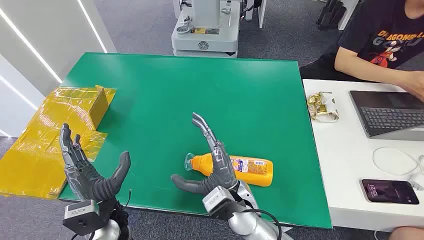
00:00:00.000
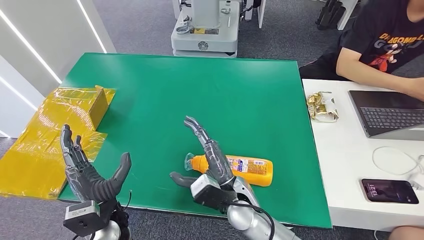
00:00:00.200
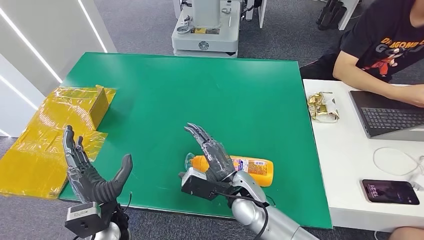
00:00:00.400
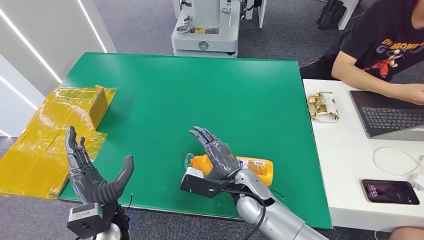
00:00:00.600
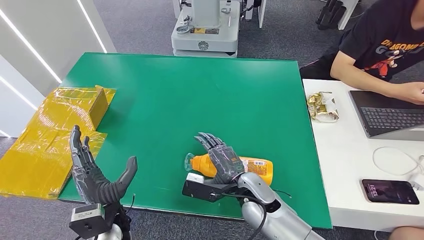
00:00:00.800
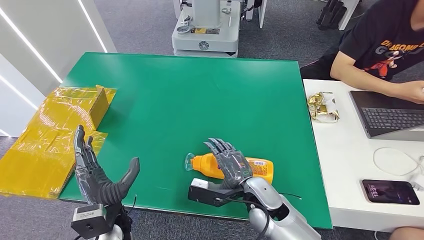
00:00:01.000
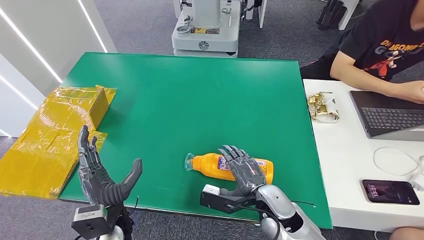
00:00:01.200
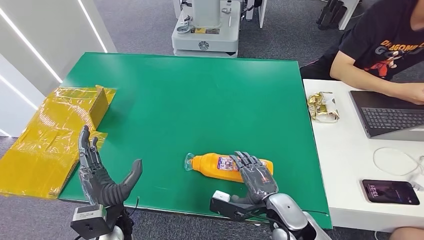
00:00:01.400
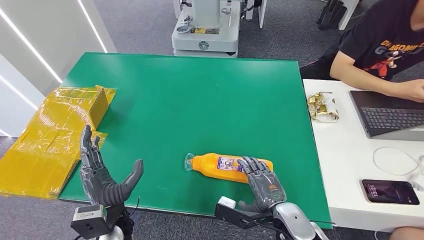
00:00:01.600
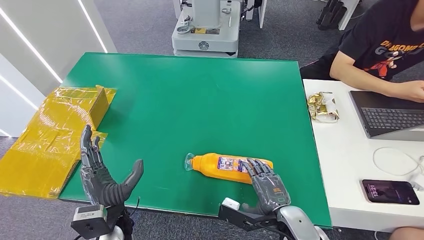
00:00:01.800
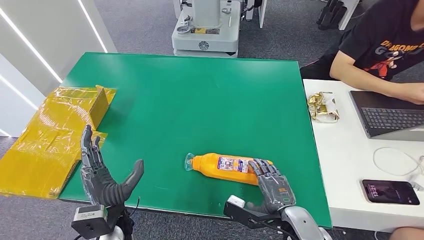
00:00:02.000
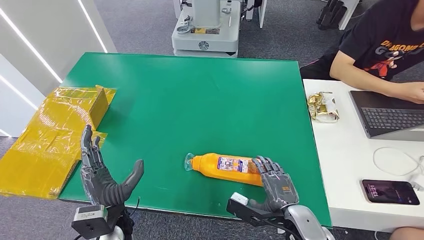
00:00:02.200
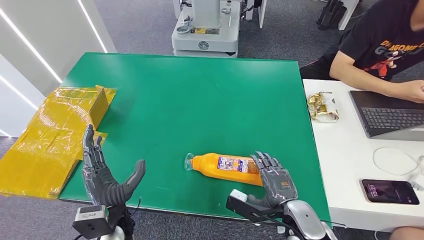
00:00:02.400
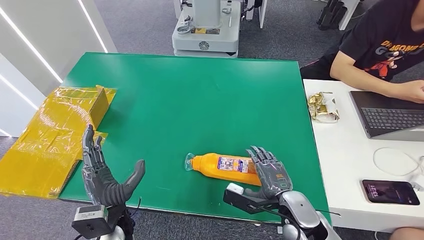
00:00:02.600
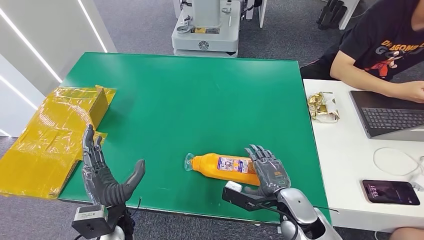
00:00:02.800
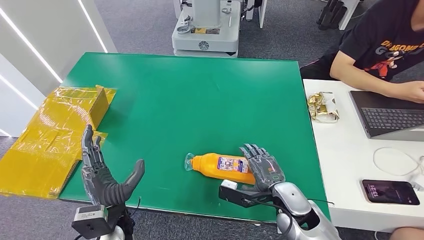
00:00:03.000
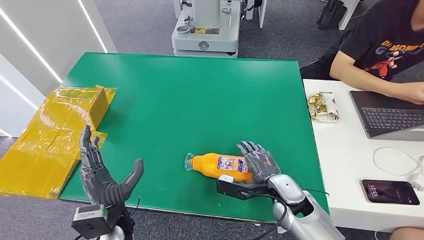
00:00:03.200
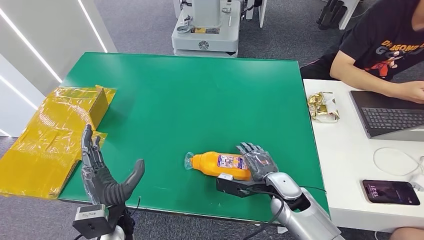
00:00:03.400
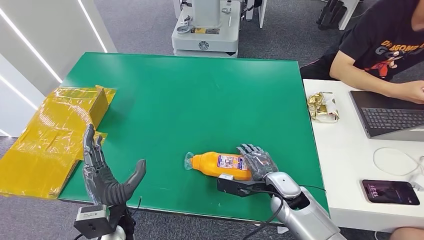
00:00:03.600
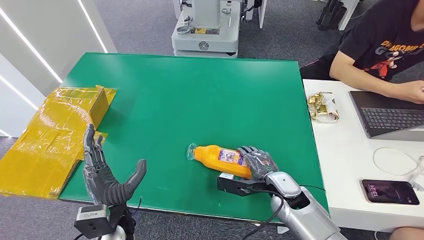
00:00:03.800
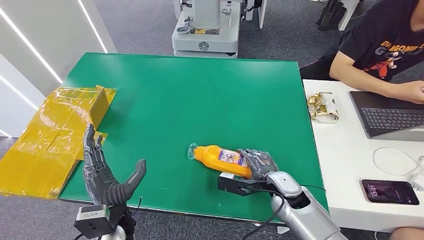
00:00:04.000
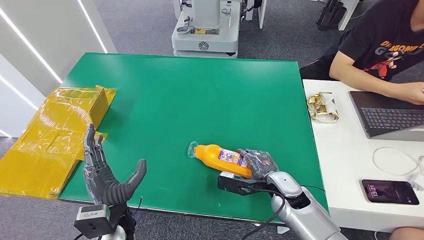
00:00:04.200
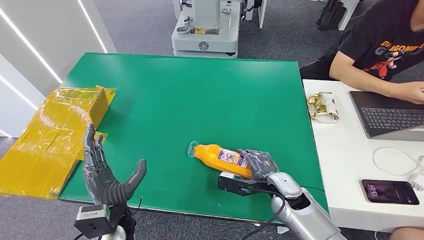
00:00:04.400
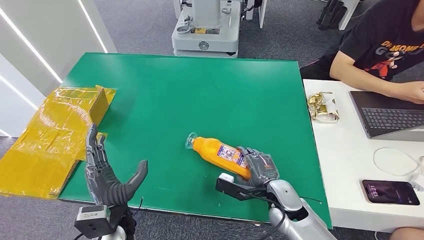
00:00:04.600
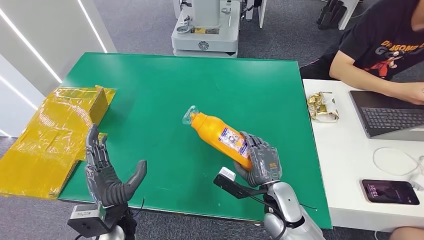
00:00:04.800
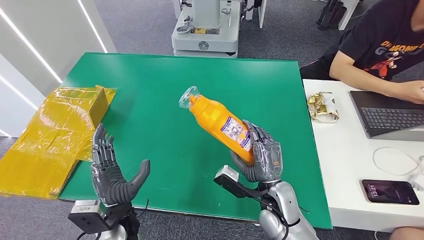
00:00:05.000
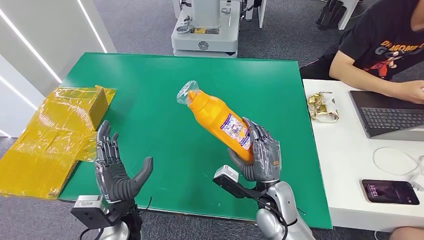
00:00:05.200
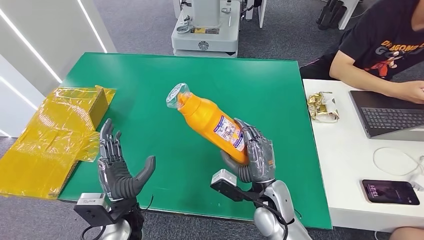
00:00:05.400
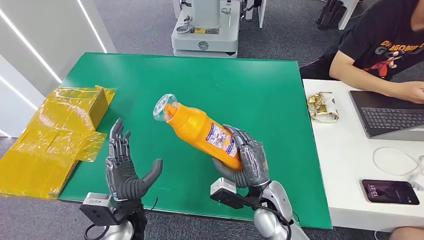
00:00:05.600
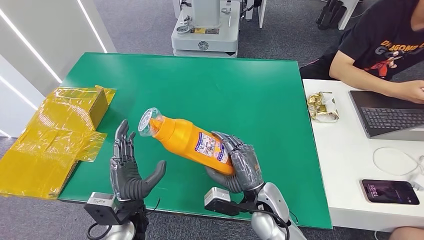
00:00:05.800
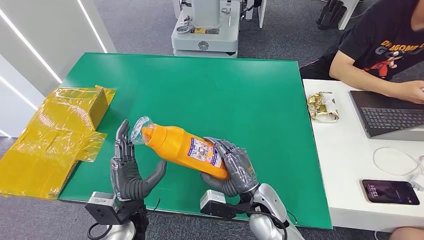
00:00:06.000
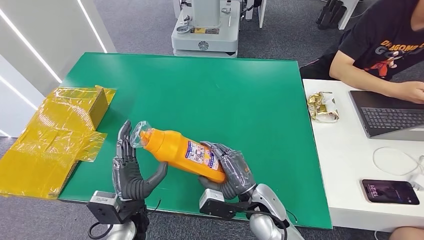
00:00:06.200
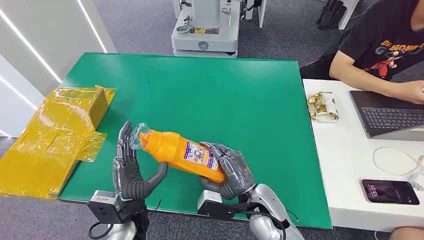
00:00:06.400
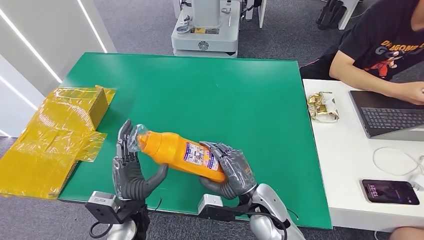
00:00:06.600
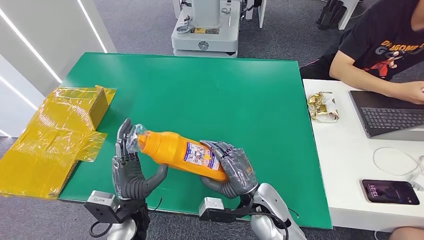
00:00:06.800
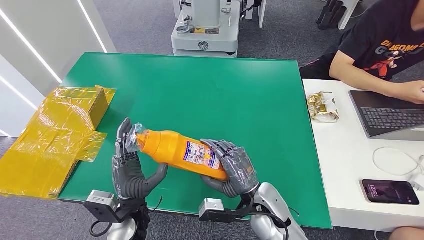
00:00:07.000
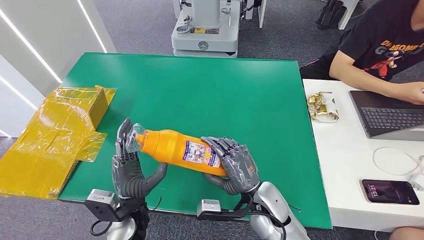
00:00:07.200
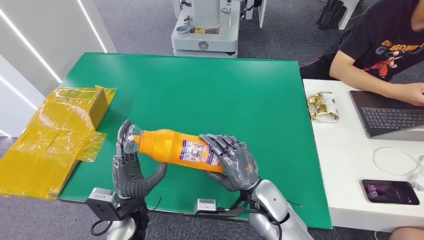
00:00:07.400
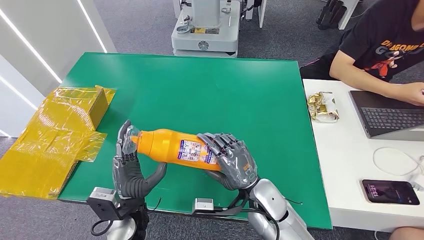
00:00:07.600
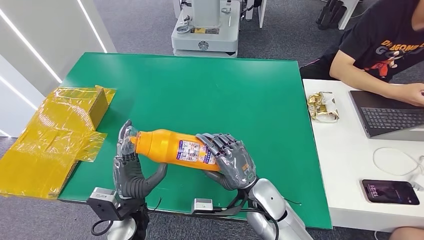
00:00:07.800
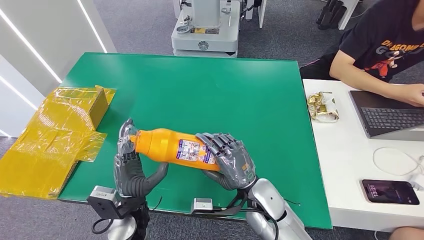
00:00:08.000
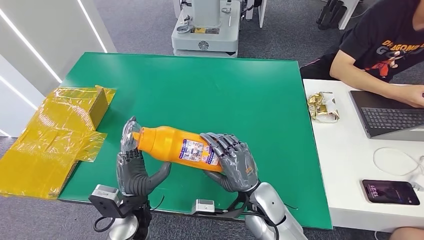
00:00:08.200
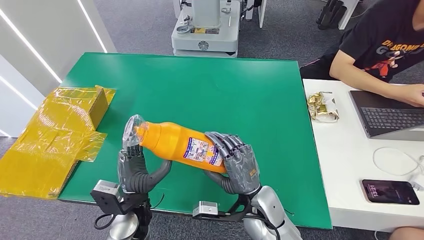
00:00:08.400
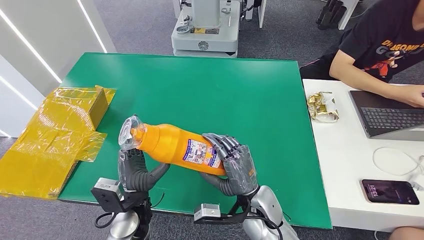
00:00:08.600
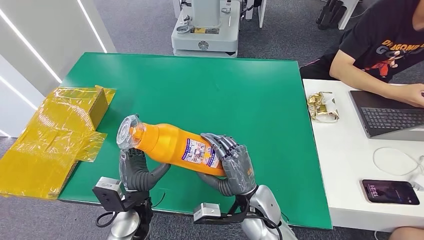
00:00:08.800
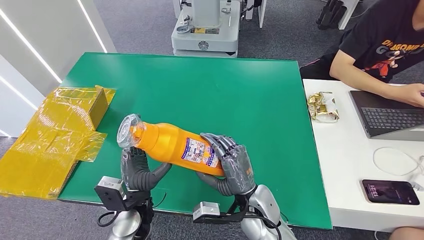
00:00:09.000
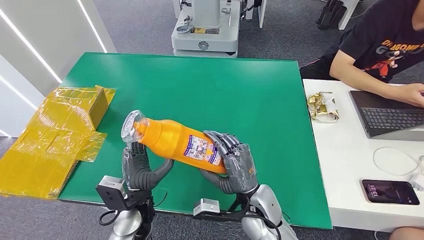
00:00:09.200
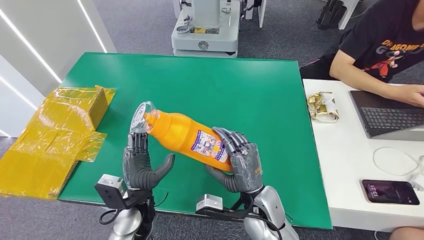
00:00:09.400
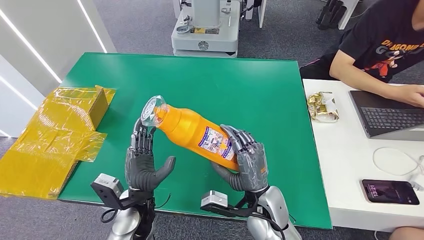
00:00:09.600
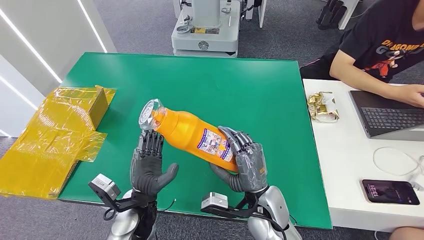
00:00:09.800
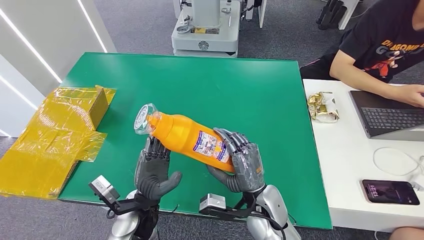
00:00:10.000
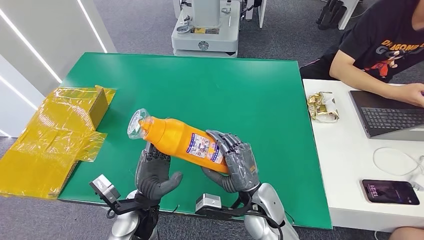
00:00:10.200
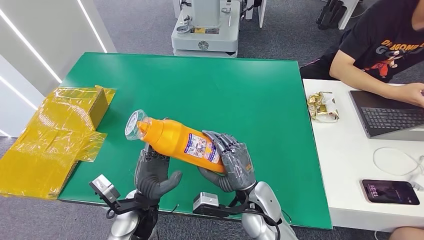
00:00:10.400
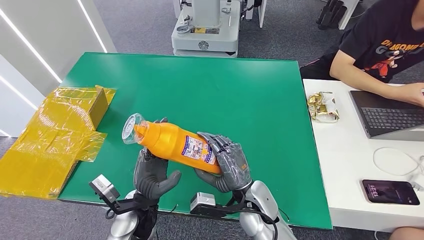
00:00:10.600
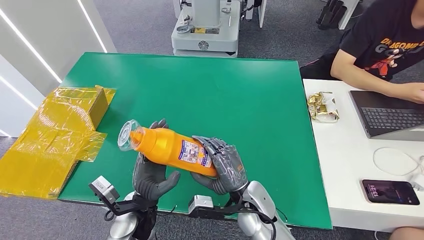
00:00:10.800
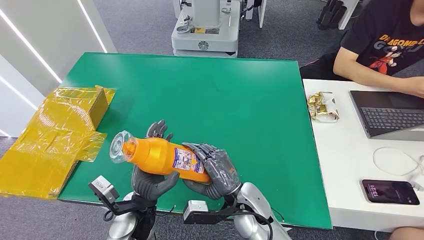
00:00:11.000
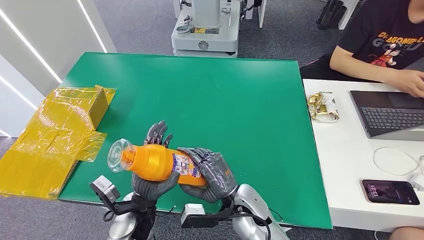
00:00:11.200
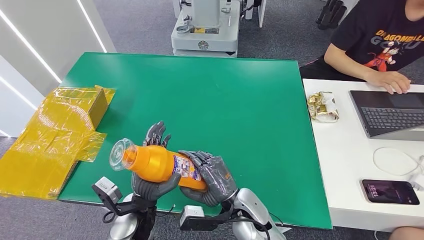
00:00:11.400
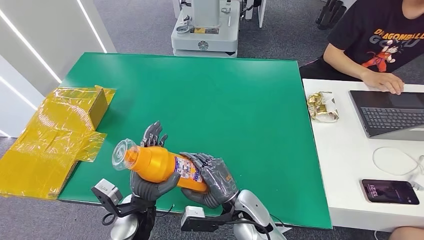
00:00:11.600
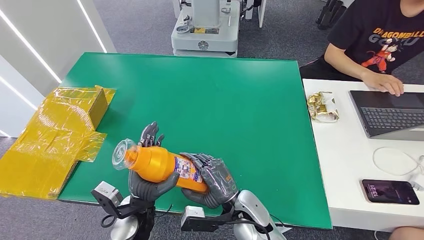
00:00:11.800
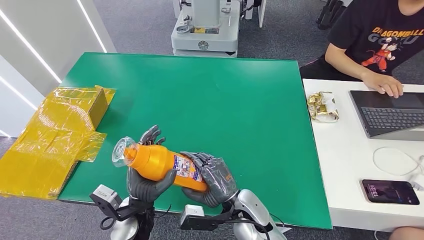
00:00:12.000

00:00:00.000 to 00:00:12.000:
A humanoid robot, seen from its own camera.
Step, 00:00:00.000 to 00:00:05.000: Pick up the bottle from the table.
00:00:01.600 to 00:00:03.000: The right hand moves forward, about 5 cm.
00:00:03.000 to 00:00:04.400: There are only small adjustments of the hands.
00:00:04.400 to 00:00:06.000: The right hand heads to the left, covering roughly 5 cm.
00:00:10.400 to 00:00:12.000: There are only small adjustments of the hands.

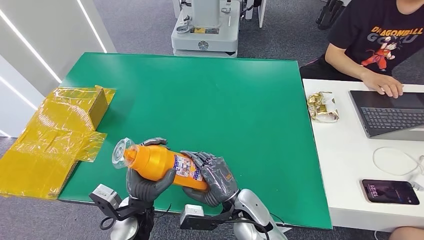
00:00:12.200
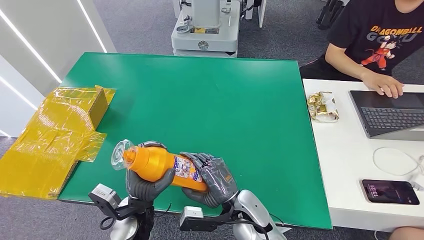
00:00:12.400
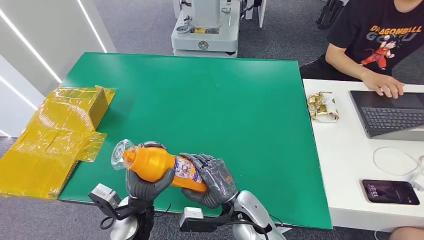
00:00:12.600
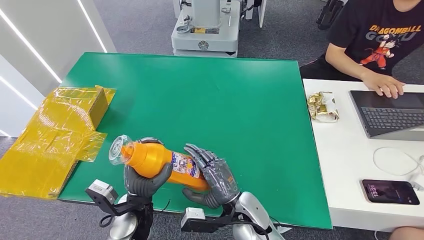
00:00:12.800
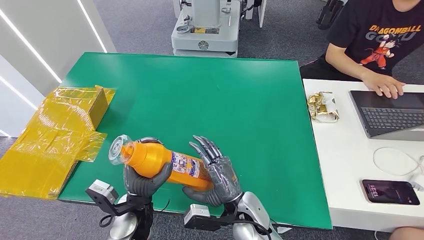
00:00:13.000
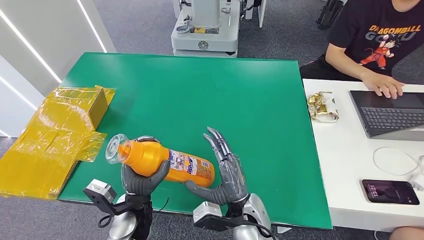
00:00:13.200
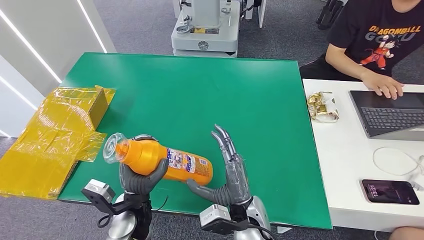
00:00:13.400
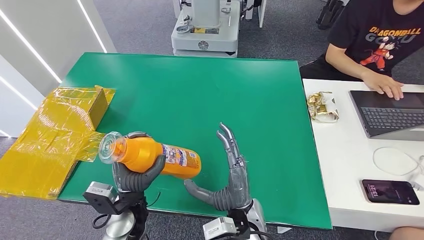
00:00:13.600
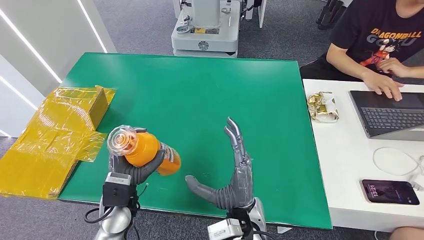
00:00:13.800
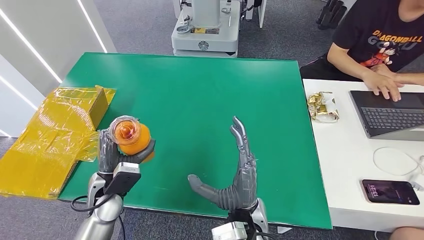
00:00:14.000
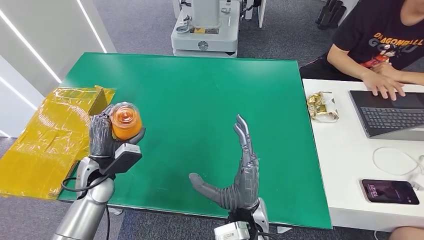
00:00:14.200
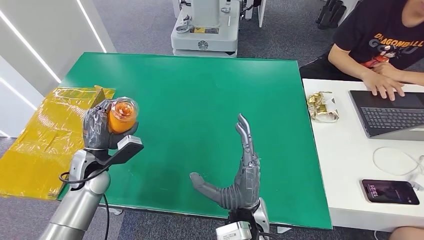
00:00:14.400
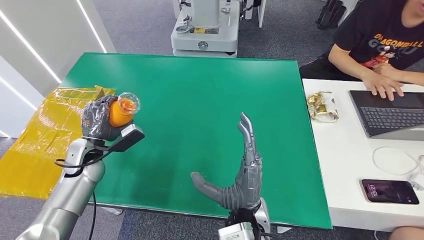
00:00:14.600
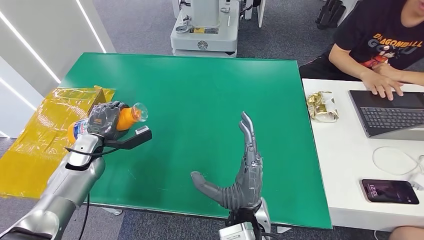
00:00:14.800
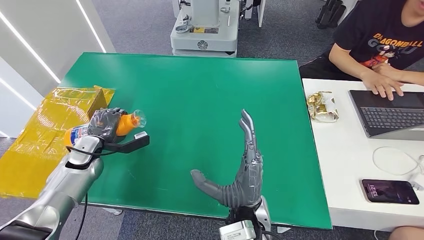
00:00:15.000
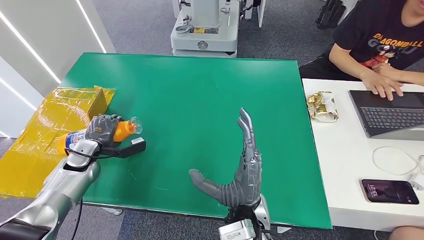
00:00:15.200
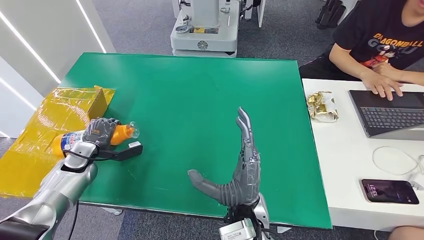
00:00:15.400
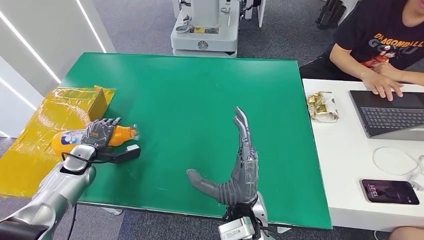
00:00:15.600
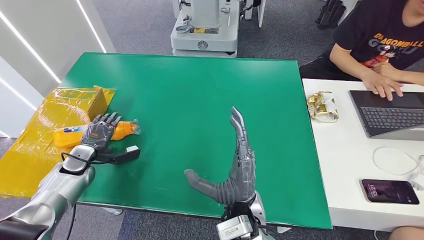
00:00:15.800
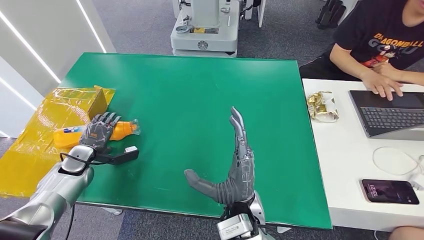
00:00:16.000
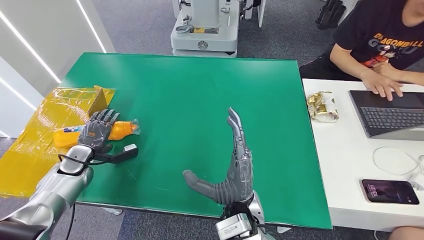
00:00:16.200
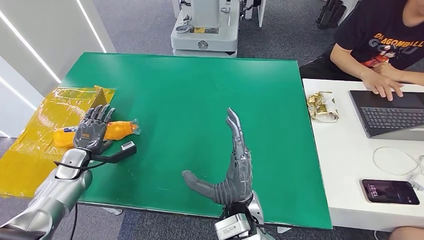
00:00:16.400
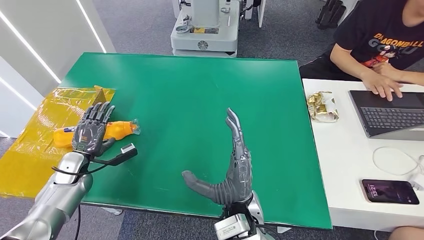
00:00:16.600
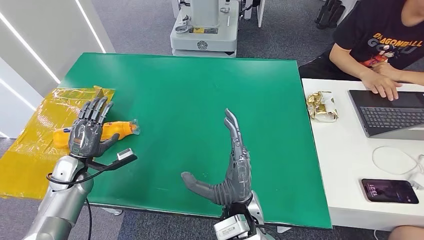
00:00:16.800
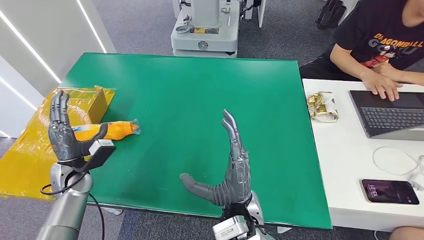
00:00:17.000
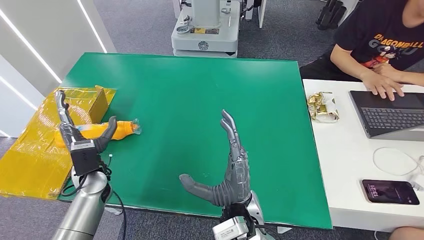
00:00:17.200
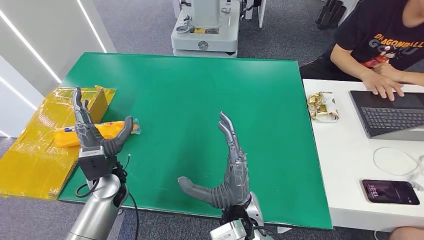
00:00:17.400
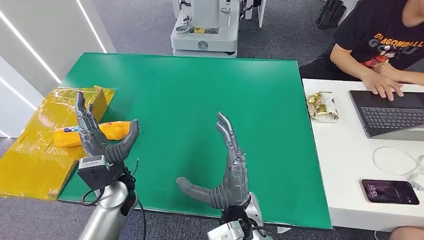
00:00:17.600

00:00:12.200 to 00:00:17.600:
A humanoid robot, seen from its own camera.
Step, 00:00:12.200 to 00:00:17.400: Turn the bottle to the front side.
00:00:13.600 to 00:00:15.000: The left hand travels to the left and forward by approximately 25 cm.
00:00:15.000 to 00:00:16.200: The left hand shifts by some 5 cm.
00:00:16.200 to 00:00:17.600: The left hand goes approximately 20 cm to the right.
